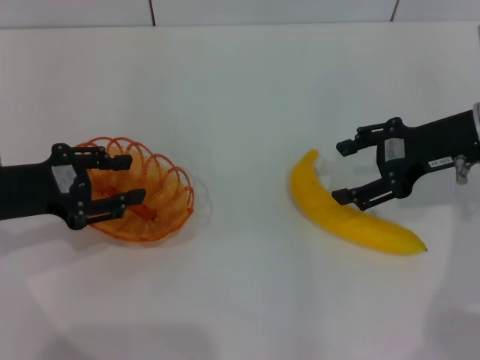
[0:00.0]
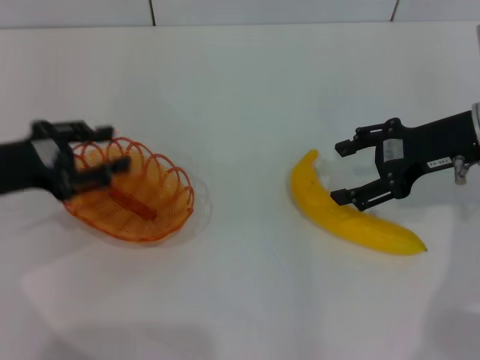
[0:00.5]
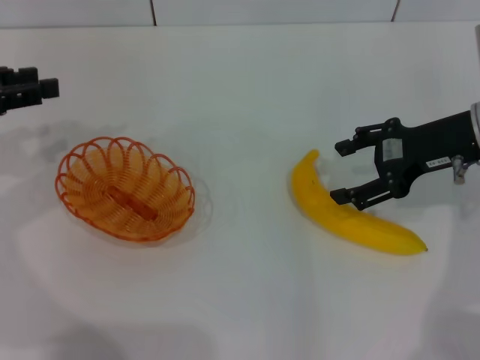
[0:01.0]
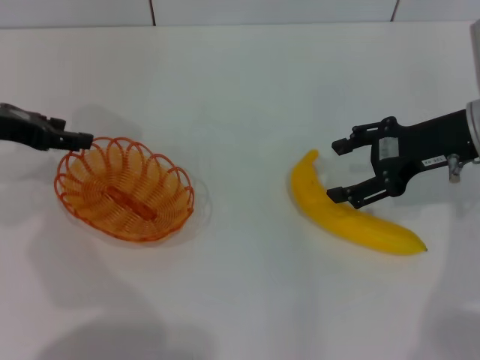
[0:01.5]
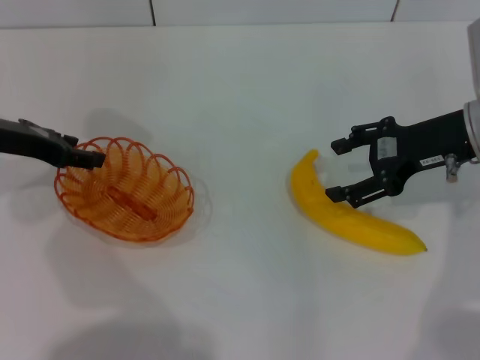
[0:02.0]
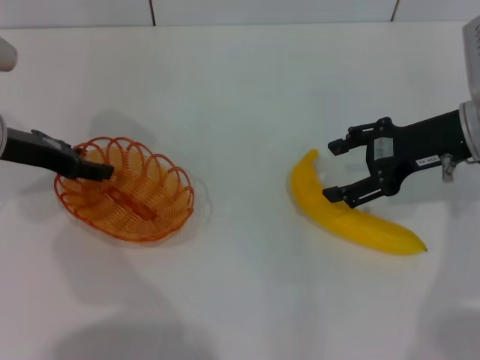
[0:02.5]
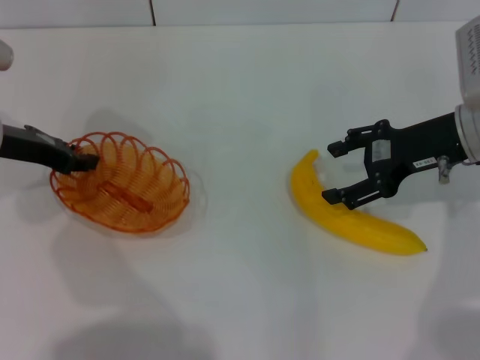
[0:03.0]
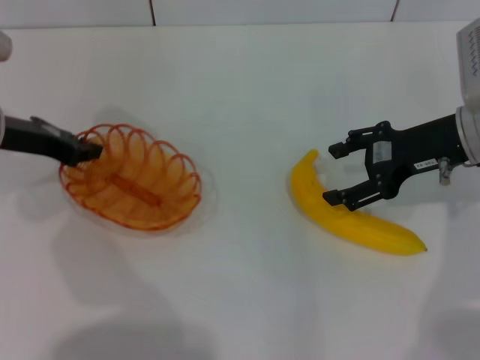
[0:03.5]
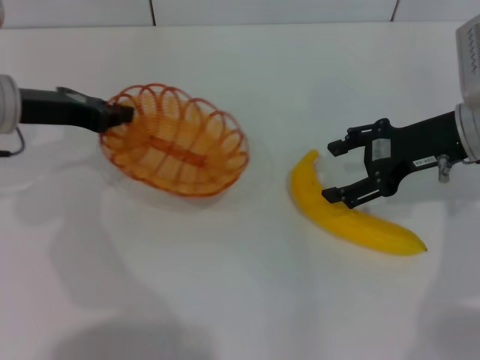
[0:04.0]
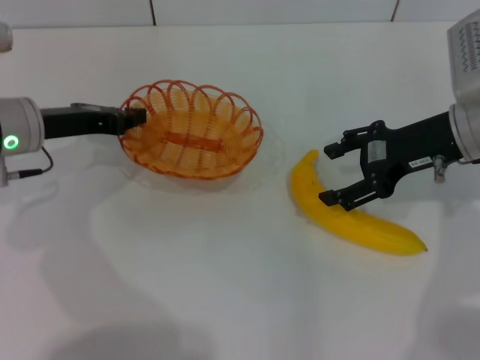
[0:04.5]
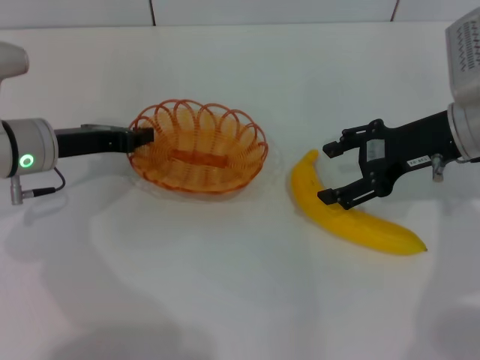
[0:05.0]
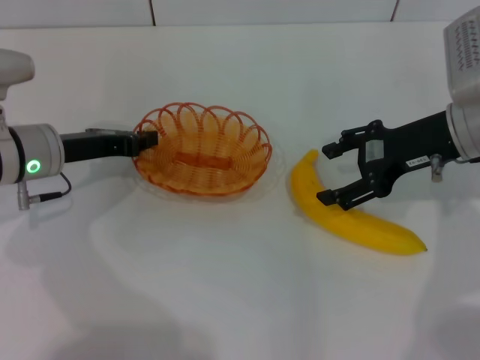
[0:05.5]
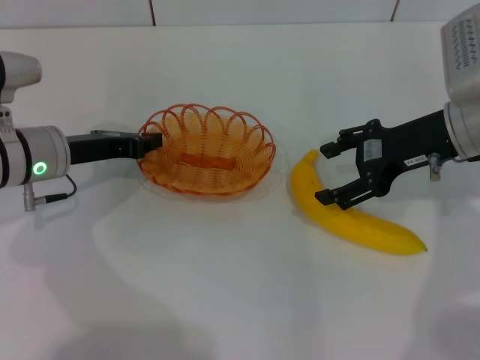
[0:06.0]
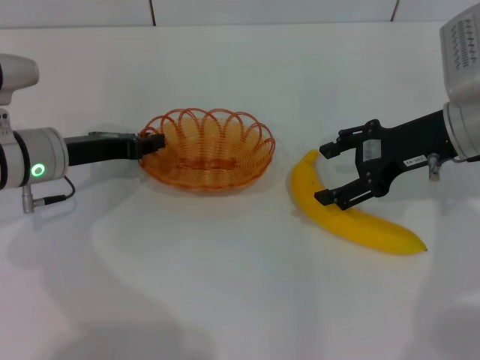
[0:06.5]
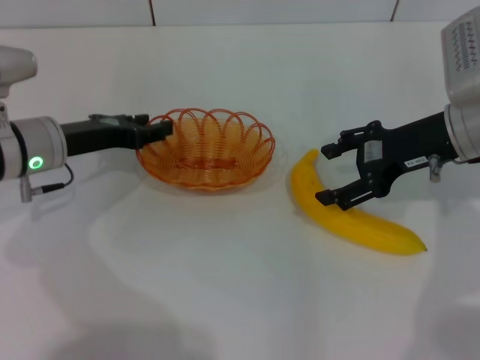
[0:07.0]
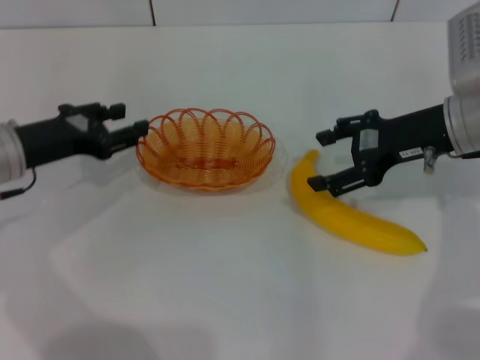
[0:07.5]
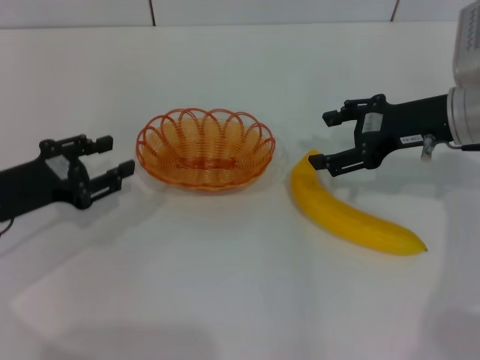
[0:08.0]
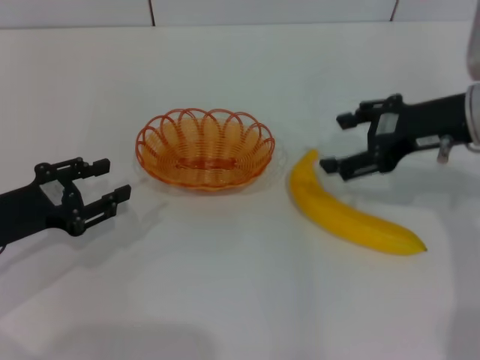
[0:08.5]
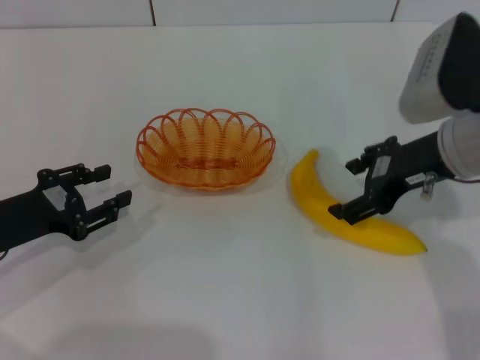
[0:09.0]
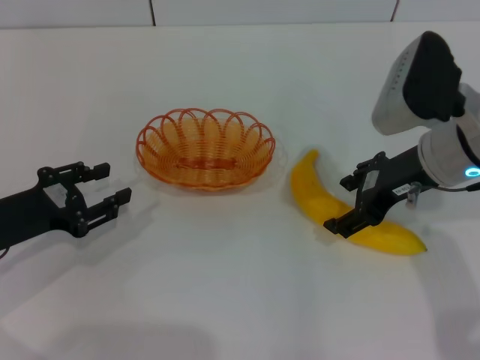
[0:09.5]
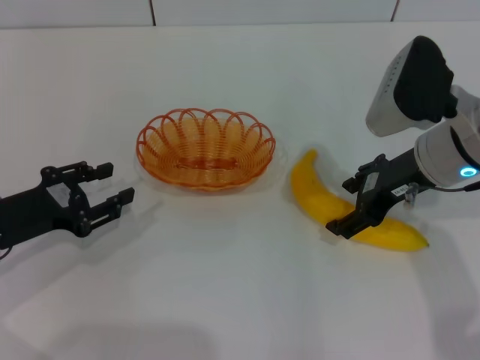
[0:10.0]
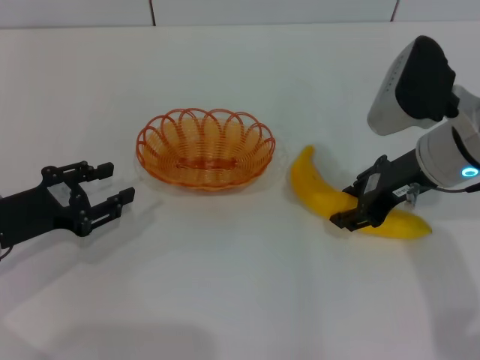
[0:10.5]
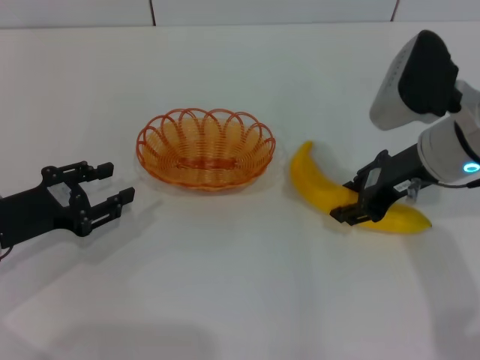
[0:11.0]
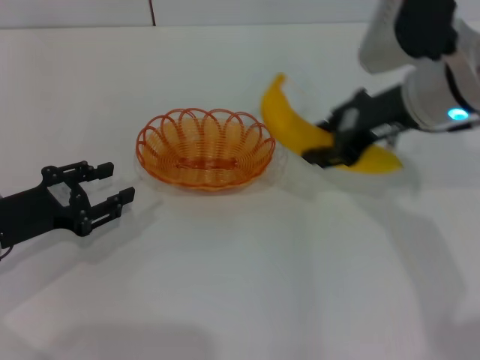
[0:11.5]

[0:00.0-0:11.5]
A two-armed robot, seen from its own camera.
Step, 0:00.0 to 0:03.5: Pick up the basket with the left gripper.
Step, 0:04.0 to 0:07.0: Place the basket in the center of view with the left gripper.
Step, 0:07.5 to 0:11.0: Pick up the banana with the right gripper.
0:00.0 to 0:02.0: The left gripper heads forward, covering approximately 10 cm.
0:02.0 to 0:04.0: The left gripper closes.
0:04.0 to 0:06.0: The left gripper travels downward by about 5 cm.
0:06.0 to 0:07.5: The left gripper opens.
0:07.5 to 0:09.5: The left gripper moves backward, some 5 cm.
0:09.5 to 0:11.5: The right gripper moves roughly 5 cm, and closes its fingers.

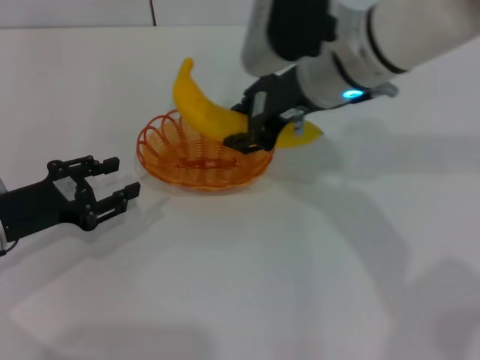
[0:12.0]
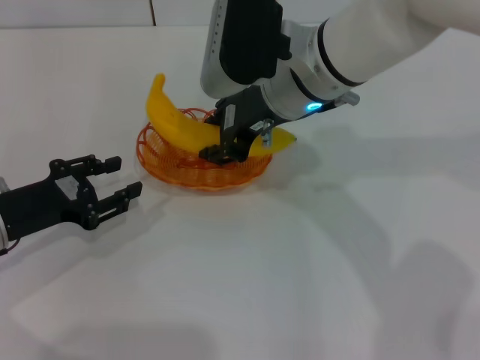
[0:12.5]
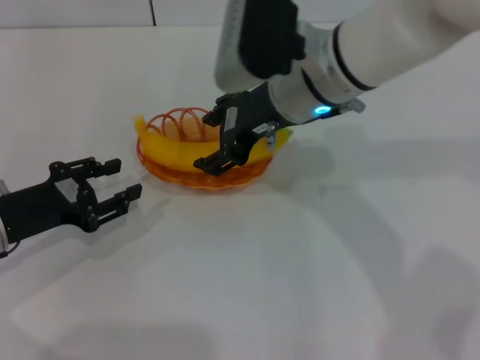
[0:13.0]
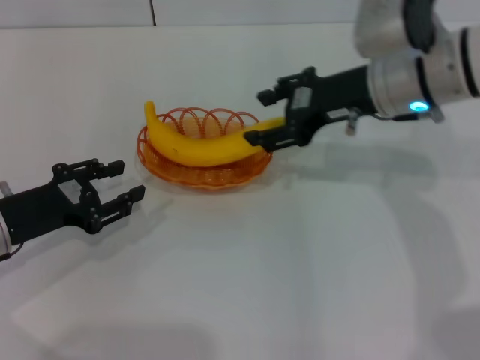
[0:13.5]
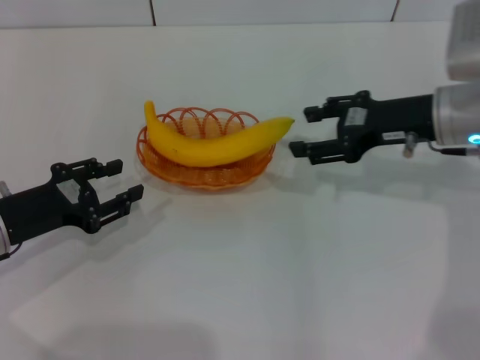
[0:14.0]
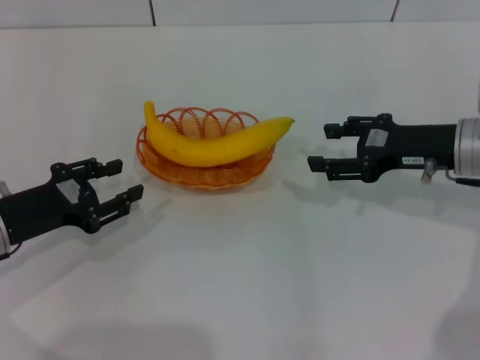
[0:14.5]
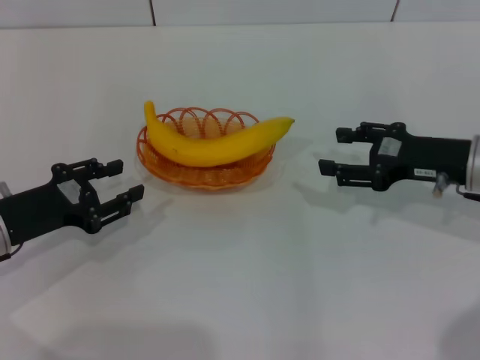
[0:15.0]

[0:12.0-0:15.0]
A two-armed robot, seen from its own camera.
Step, 0:12.0 to 0:13.0: Place the banana into the basket with the right gripper.
0:12.0 to 0:13.5: The right gripper goes some 10 cm to the right, and opens up.
0:13.5 to 0:15.0: The right gripper goes about 15 cm to the right, downward and backward.

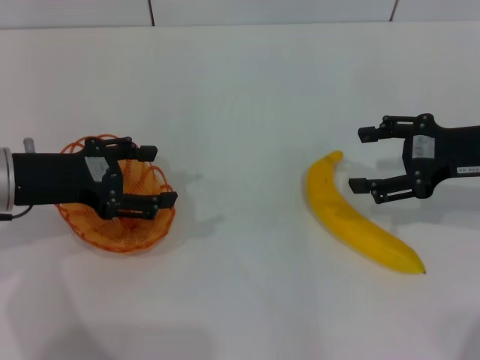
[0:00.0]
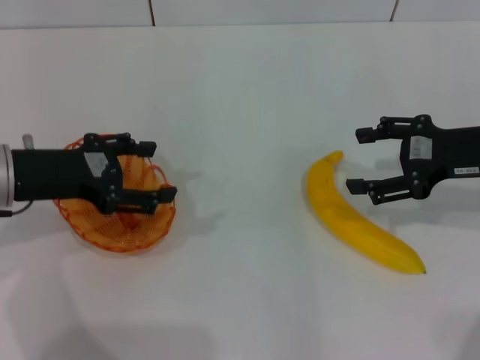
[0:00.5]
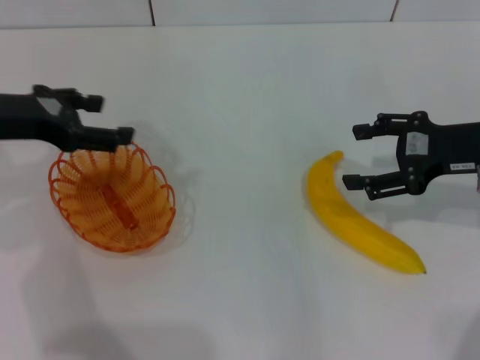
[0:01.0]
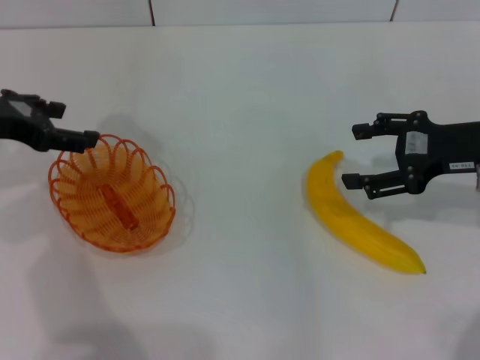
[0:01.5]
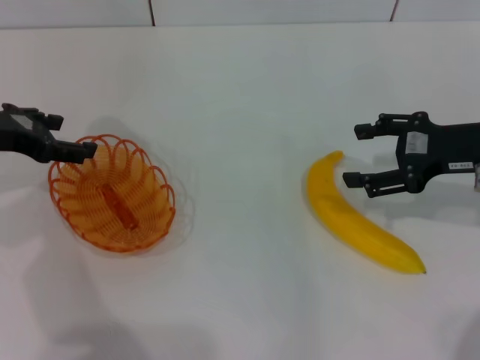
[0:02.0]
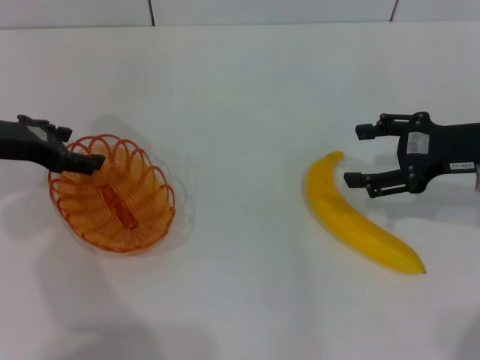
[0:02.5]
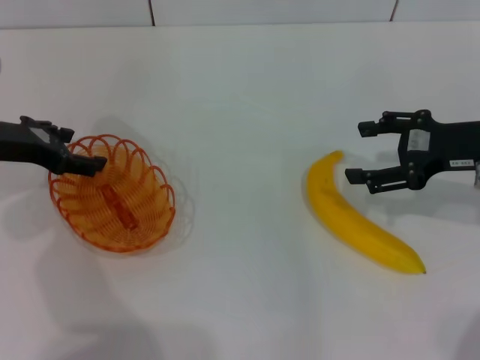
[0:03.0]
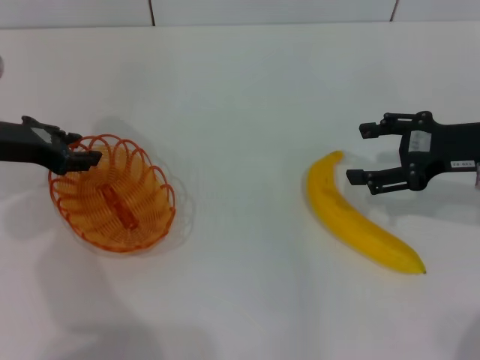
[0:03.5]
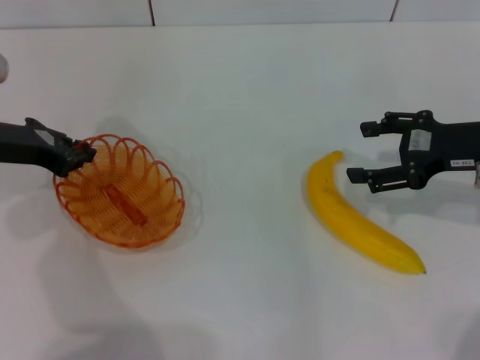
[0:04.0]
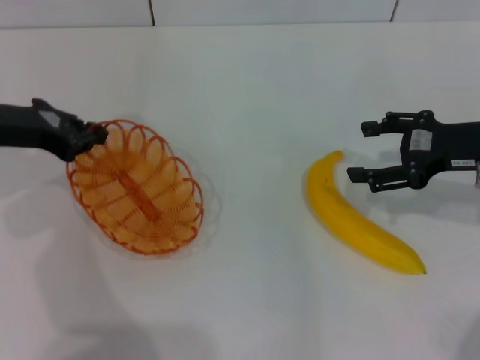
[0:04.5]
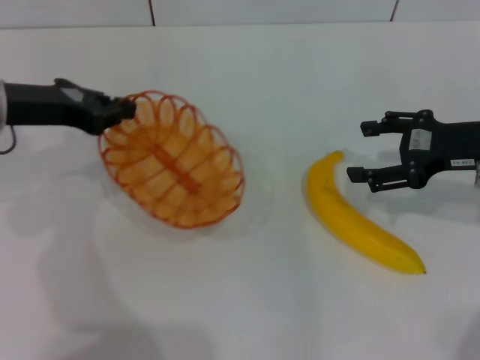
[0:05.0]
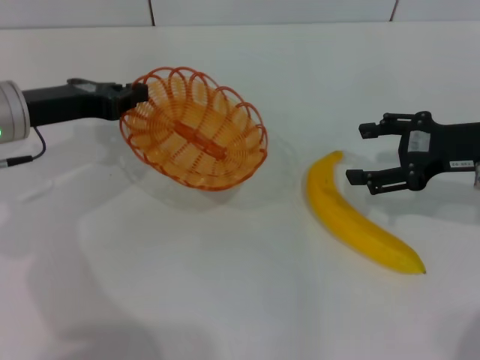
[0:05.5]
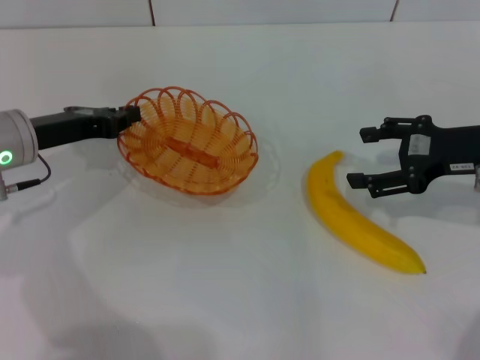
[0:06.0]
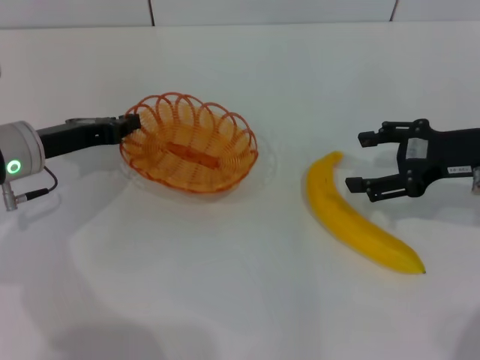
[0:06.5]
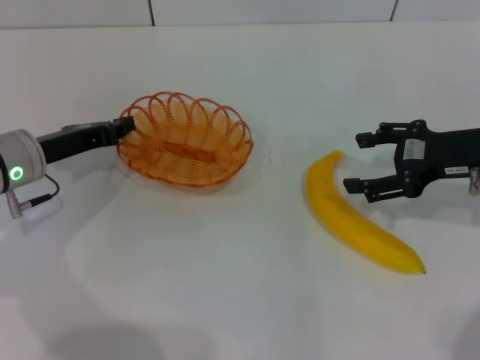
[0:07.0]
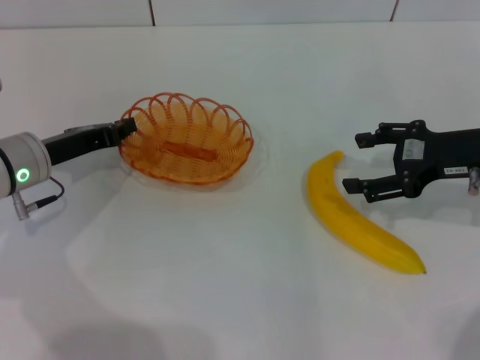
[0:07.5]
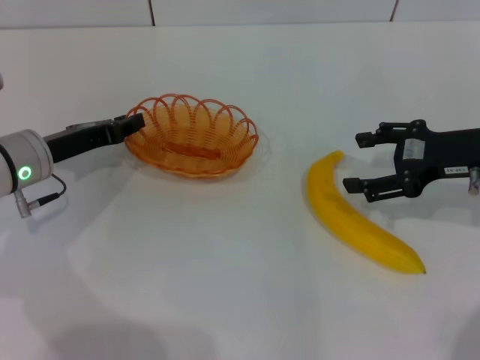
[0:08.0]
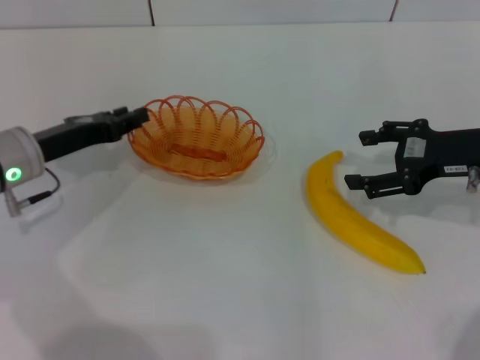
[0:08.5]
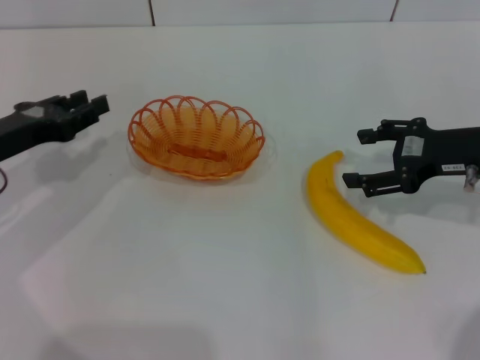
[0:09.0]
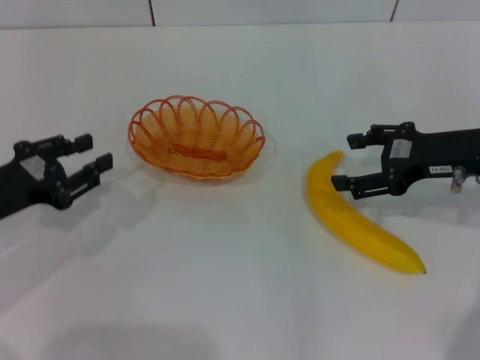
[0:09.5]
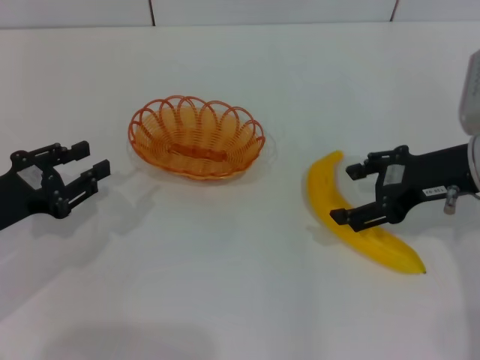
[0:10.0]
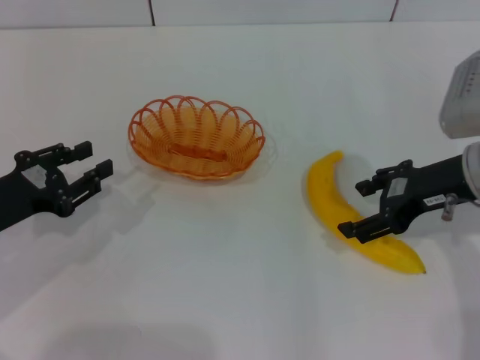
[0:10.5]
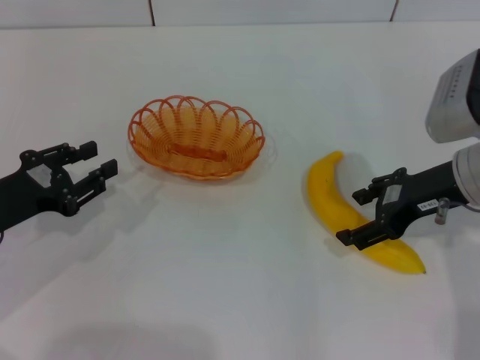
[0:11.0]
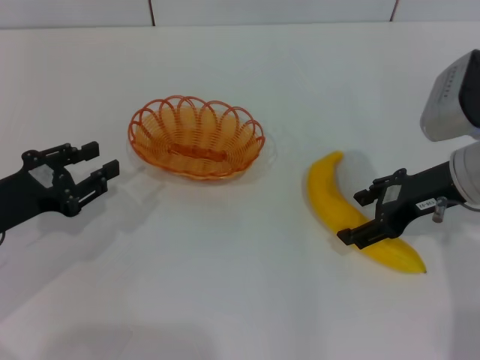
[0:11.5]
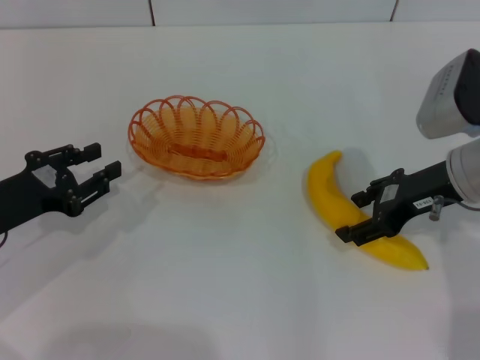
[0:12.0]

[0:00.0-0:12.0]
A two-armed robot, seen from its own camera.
Step, 0:00.0 to 0:04.5: Pick up the basket with the left gripper.
Step, 0:05.0 to 0:08.5: Place the basket in the center of view with the left gripper.
0:00.0 to 0:02.0: The left gripper moves some 5 cm.
0:02.0 to 0:04.0: The left gripper closes.
0:06.0 to 0:08.0: The grippers make only small movements.
0:08.0 to 0:10.0: The left gripper heads backward and to the left, covering about 10 cm; the right gripper shifts by about 5 cm.
0:10.0 to 0:12.0: The grippers stay close to where they were, moving slightly.
